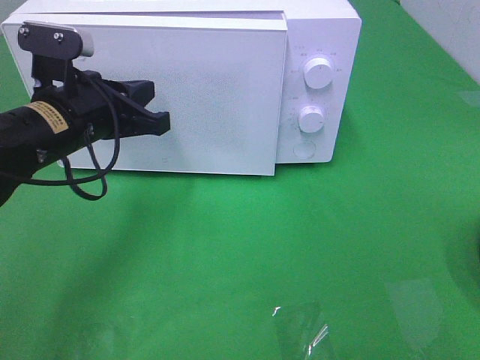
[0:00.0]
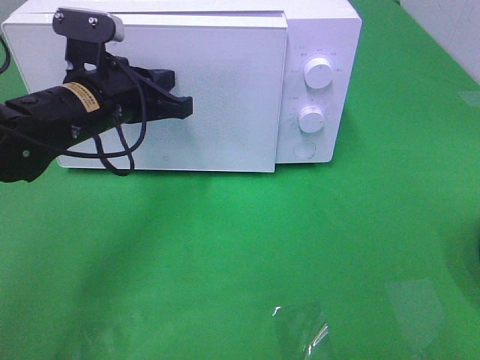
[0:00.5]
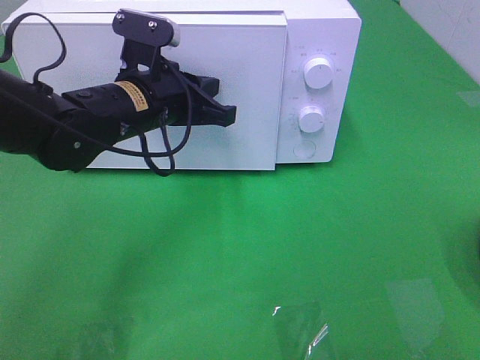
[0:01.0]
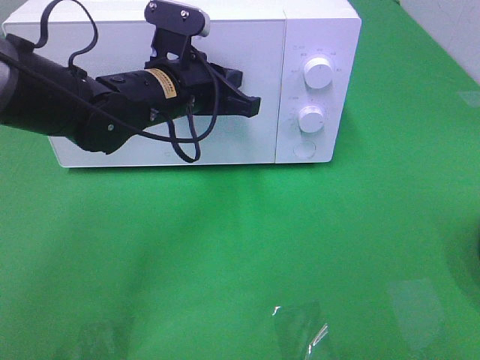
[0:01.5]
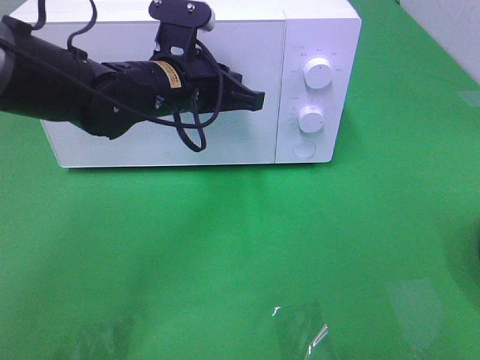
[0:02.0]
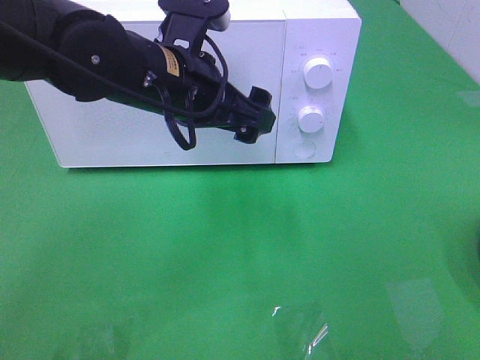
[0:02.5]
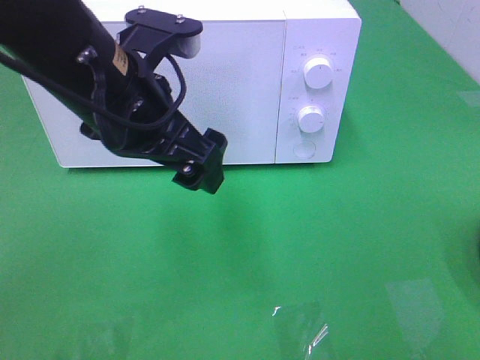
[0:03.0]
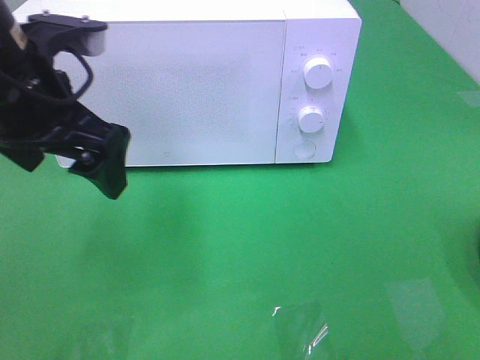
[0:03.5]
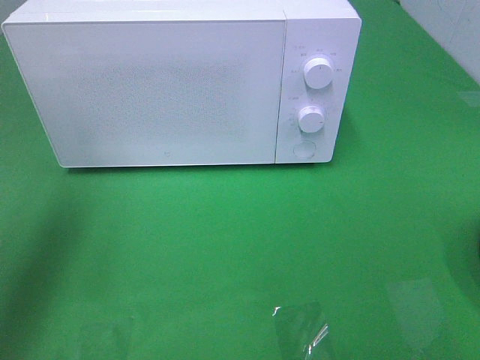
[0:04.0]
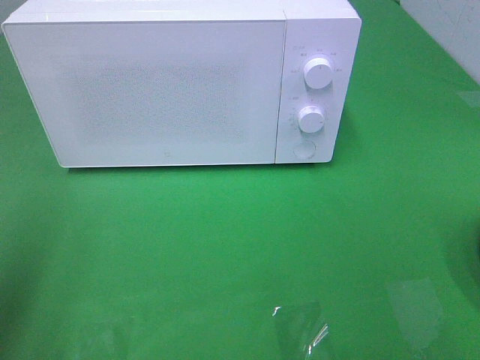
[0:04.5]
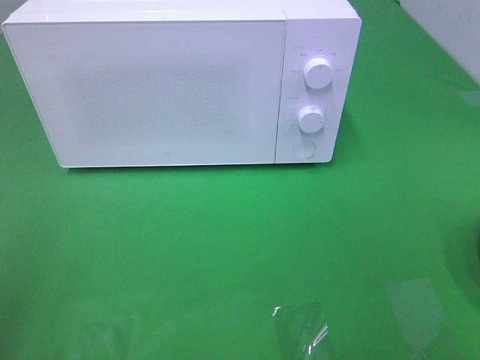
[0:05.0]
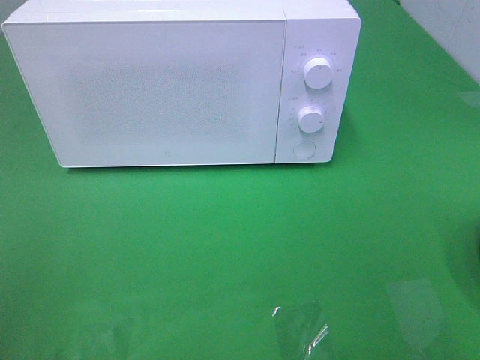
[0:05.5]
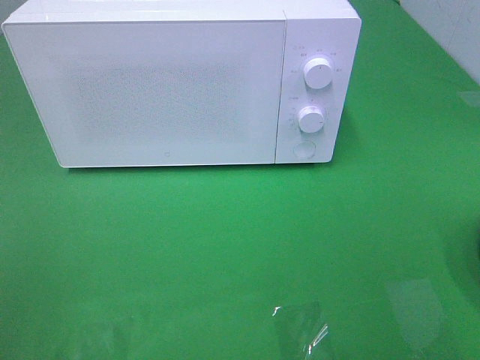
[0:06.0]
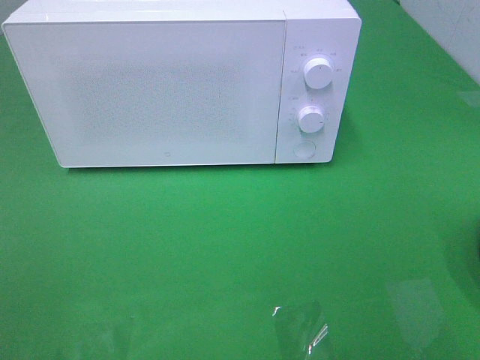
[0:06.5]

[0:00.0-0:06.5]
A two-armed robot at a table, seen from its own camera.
Task of the whole recording: Heat the burger.
0:00.0 to 0:02.0: The left gripper goes some 10 cm to the right.
0:02.0 to 0:04.5: The left gripper moves to the left and backward, roughly 35 cm, and opens.
0:04.5 to 0:06.5: The left gripper moves backward, about 15 cm.

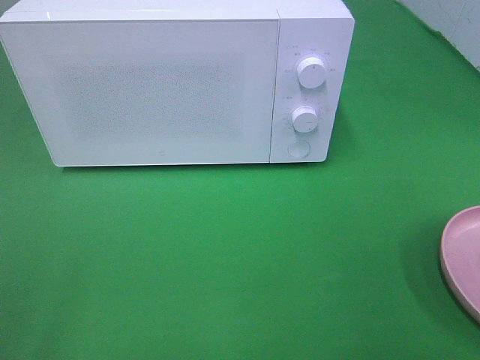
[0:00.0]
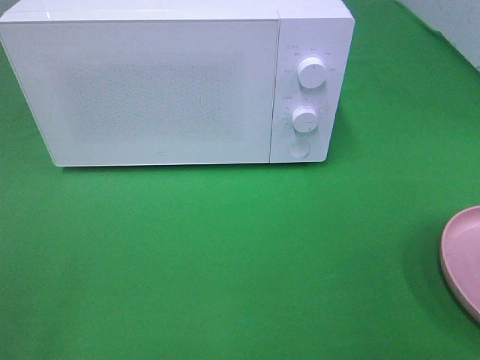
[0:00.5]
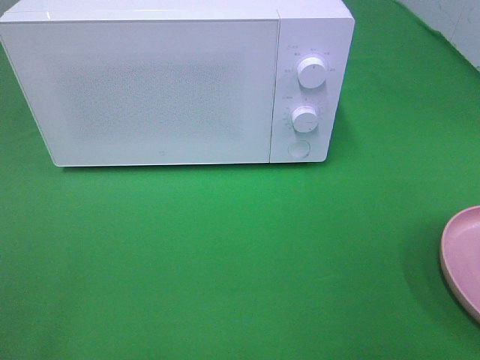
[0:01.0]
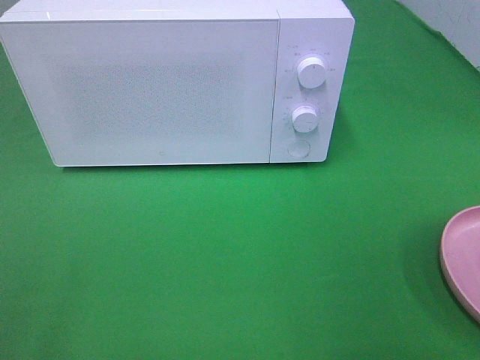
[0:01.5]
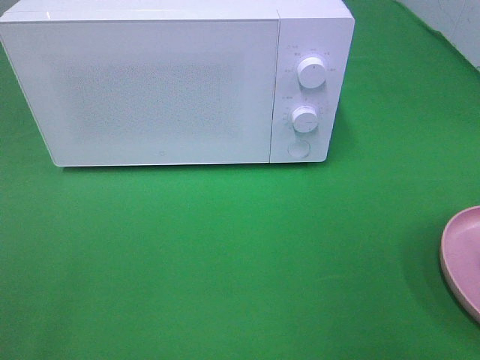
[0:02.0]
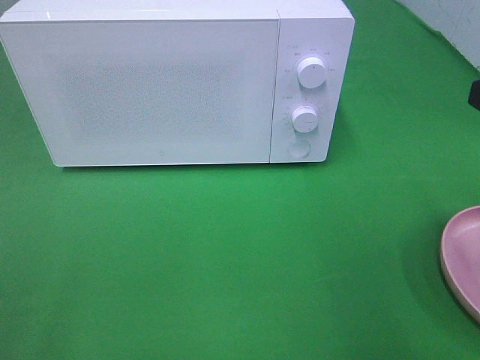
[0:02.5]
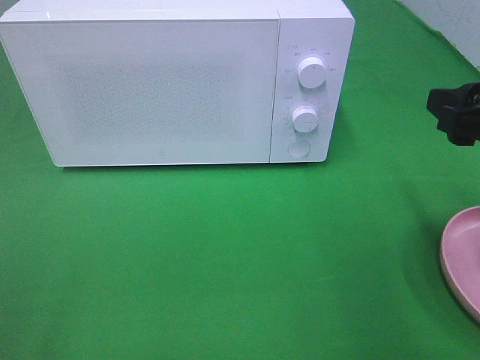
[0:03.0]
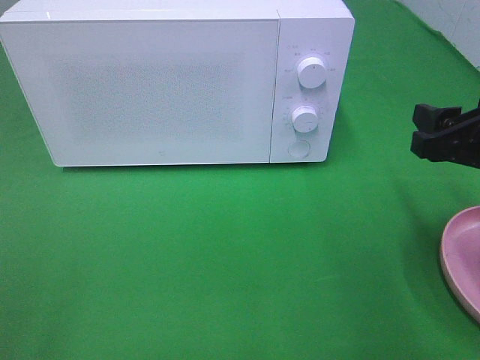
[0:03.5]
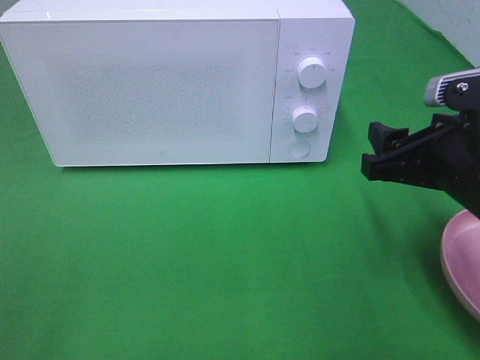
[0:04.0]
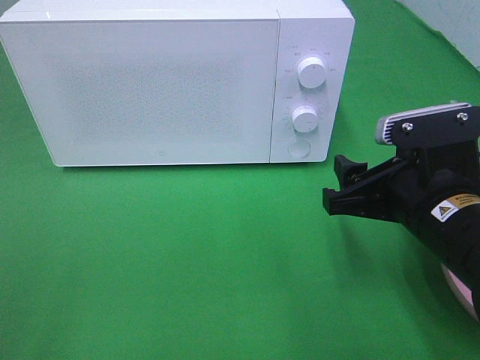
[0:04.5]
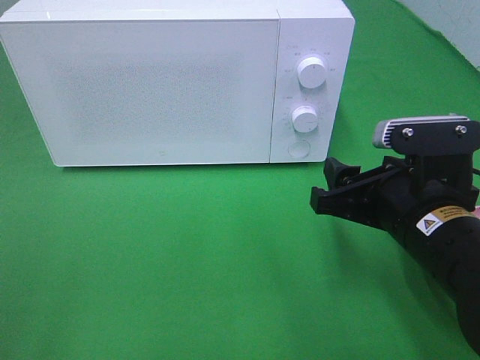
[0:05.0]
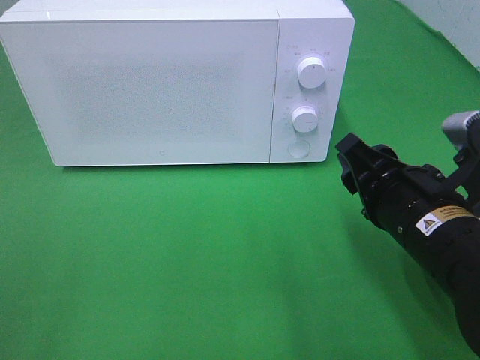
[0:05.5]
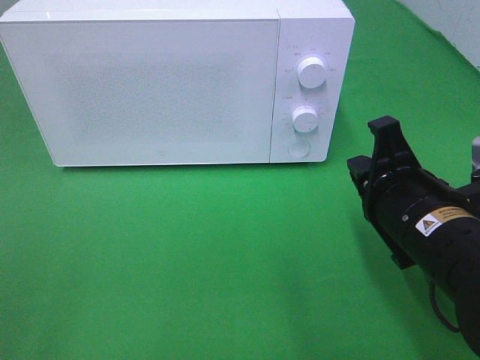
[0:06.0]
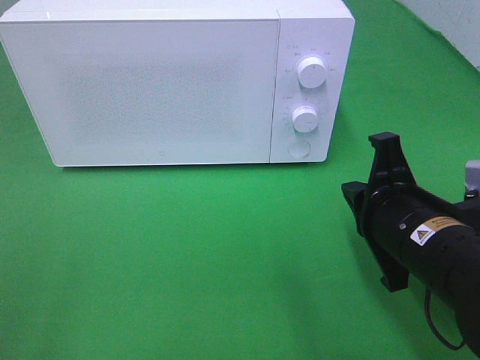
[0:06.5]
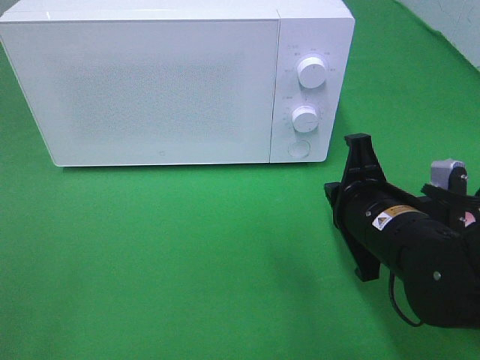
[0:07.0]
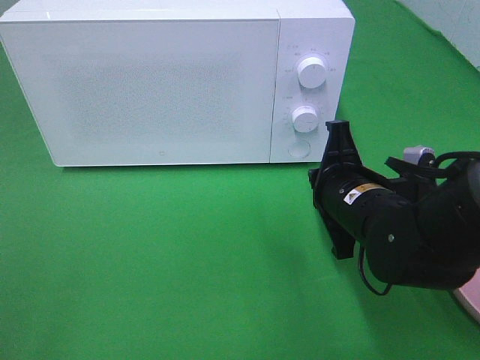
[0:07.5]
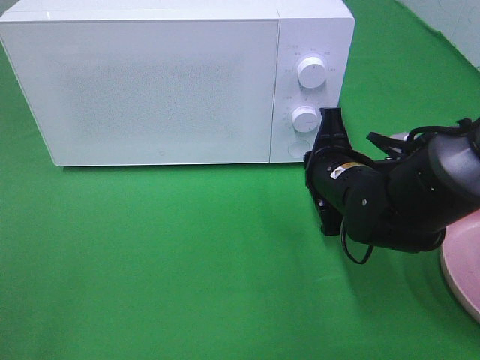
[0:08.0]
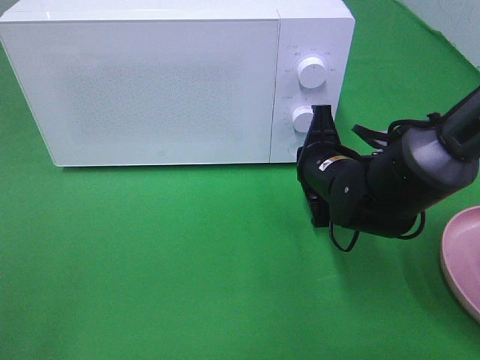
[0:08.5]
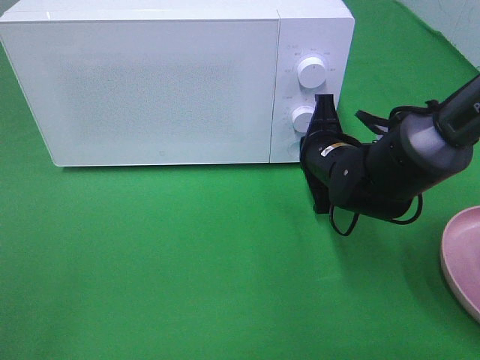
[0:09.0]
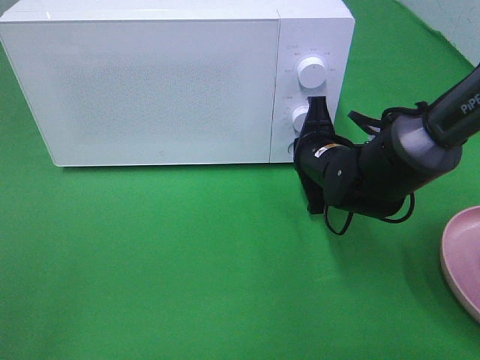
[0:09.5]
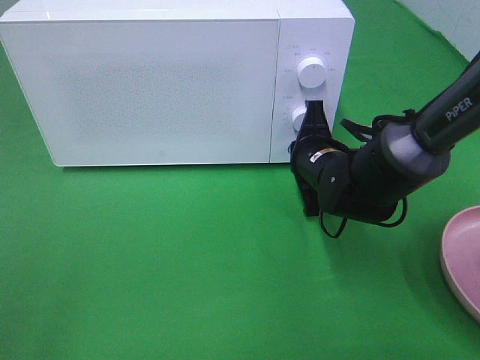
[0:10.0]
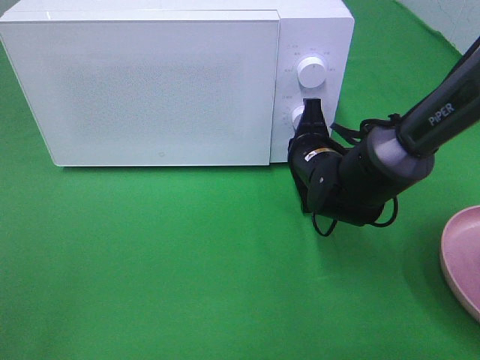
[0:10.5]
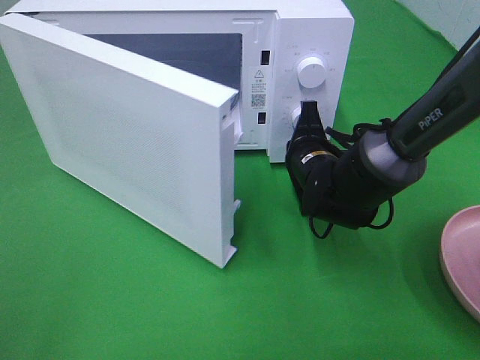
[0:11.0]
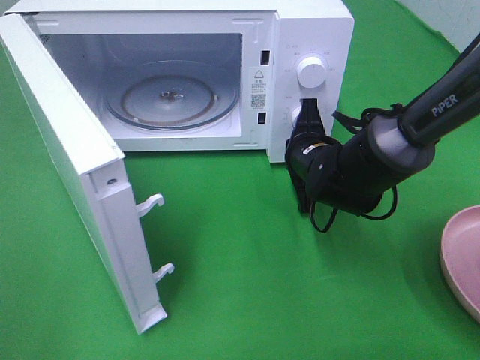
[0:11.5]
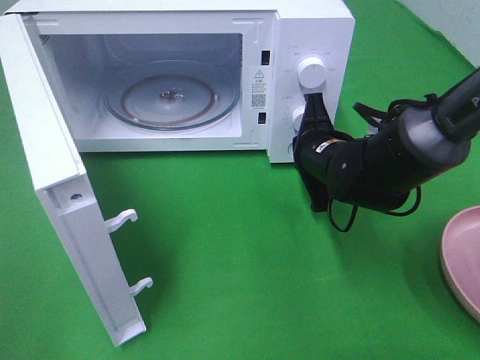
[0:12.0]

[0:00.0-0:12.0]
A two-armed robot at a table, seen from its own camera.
Task of the whole recording: Heat the burger.
0:02.0 to 0:04.0: The right gripper shifts about 15 cm downward, forward and to the left.
0:04.0 to 0:06.0: The right gripper changes place by about 5 cm, and closes.
0:06.0 to 0:08.0: The right gripper moves forward, roughly 10 cm.
0:08.0 to 0:10.0: The right gripper moves forward, approximately 5 cm.

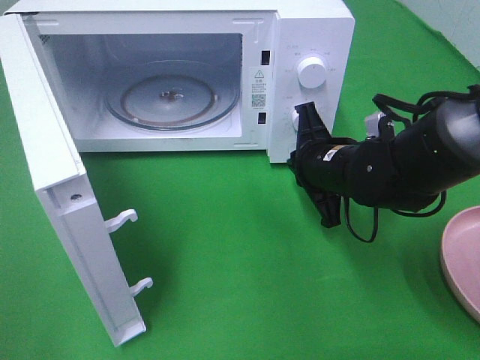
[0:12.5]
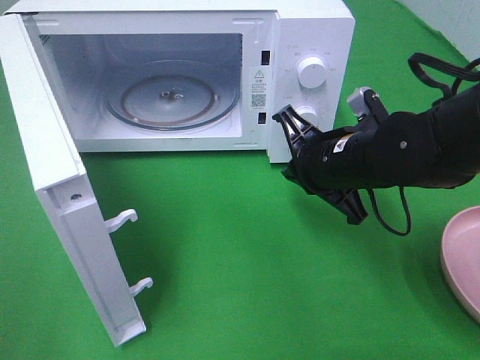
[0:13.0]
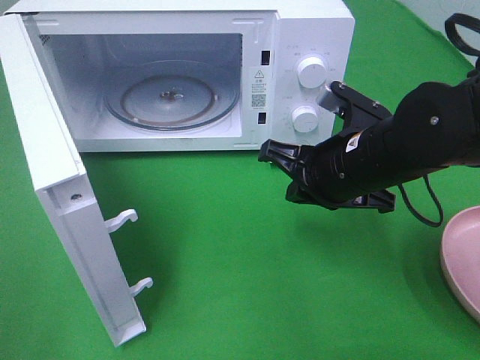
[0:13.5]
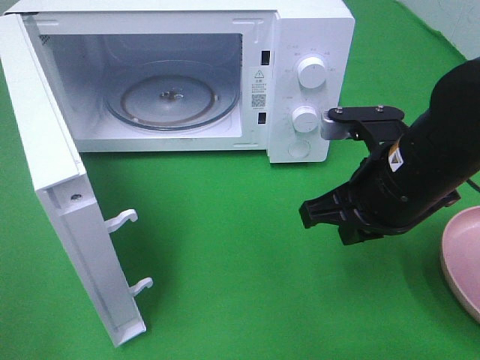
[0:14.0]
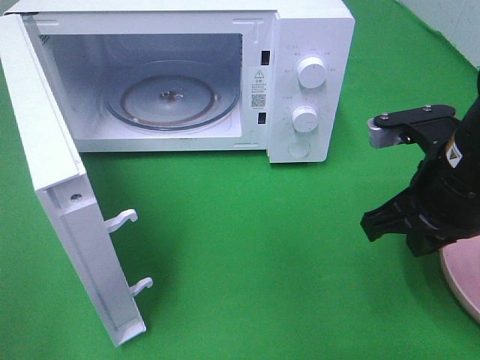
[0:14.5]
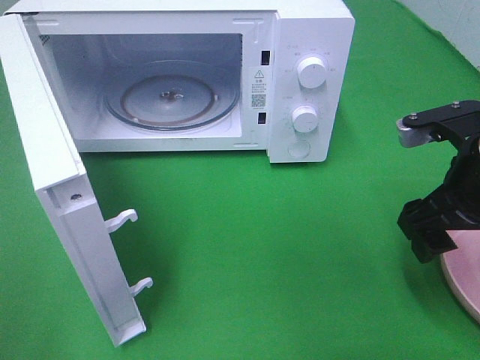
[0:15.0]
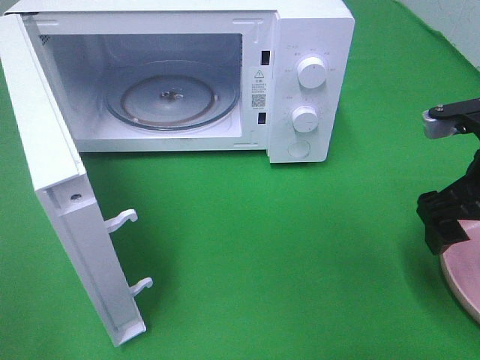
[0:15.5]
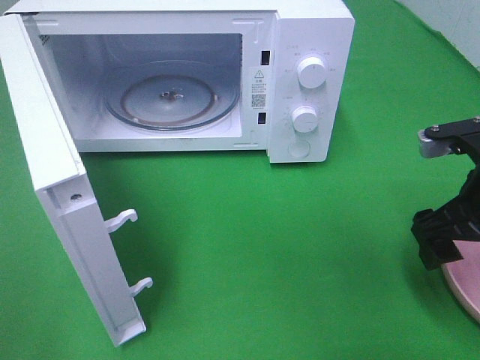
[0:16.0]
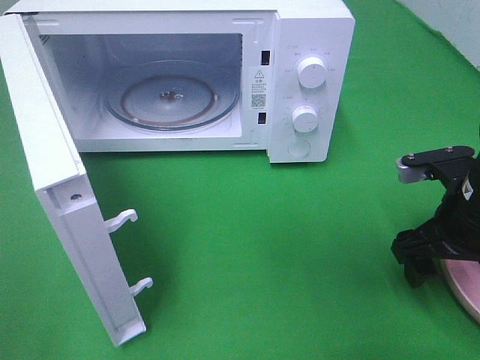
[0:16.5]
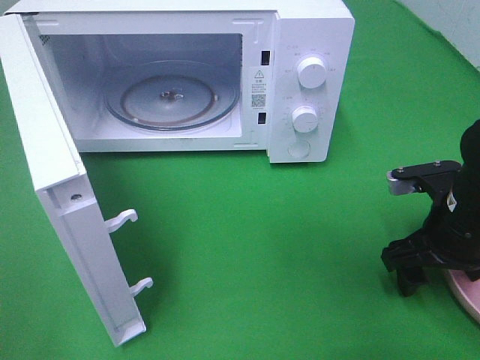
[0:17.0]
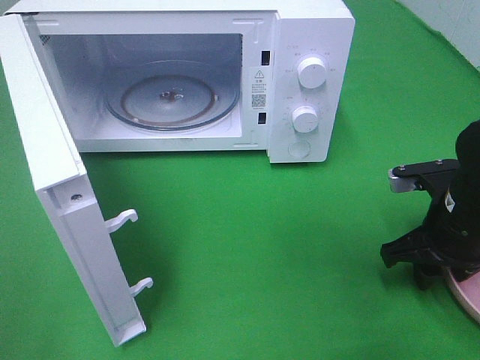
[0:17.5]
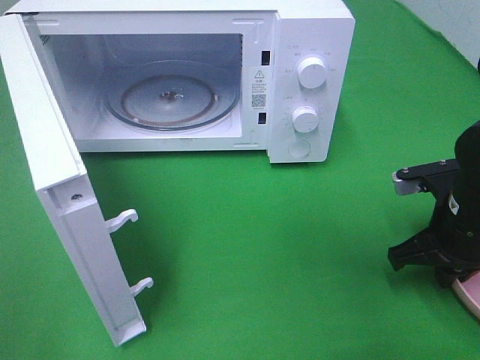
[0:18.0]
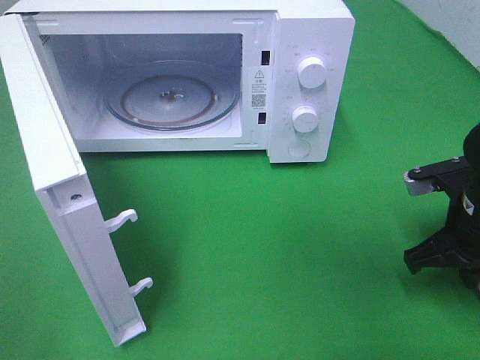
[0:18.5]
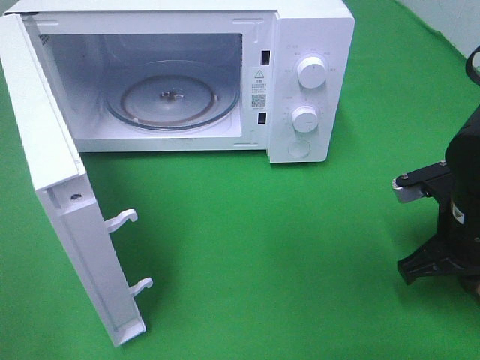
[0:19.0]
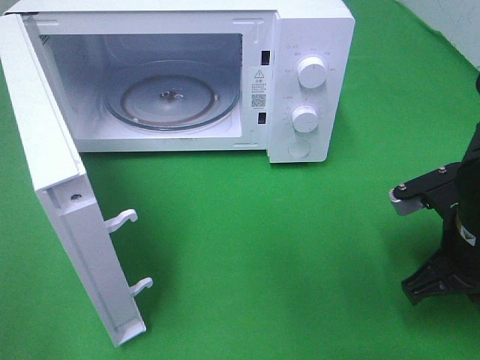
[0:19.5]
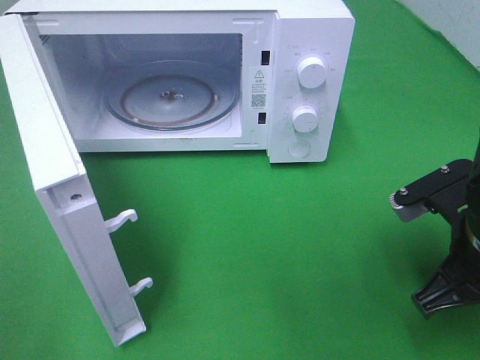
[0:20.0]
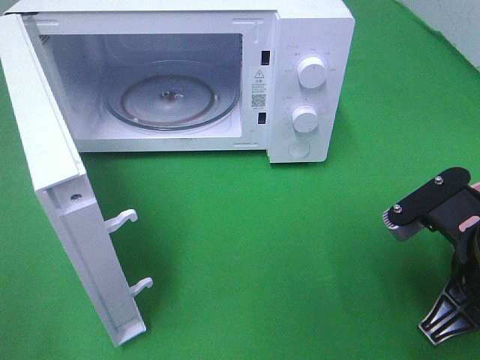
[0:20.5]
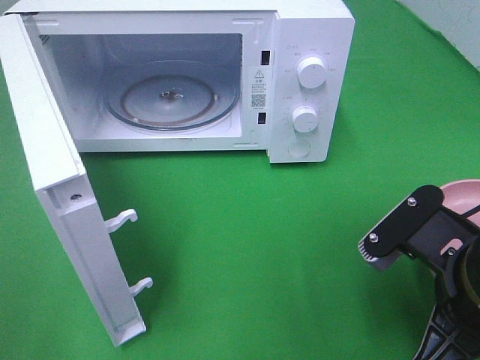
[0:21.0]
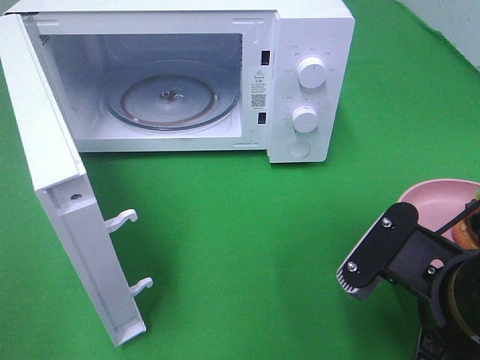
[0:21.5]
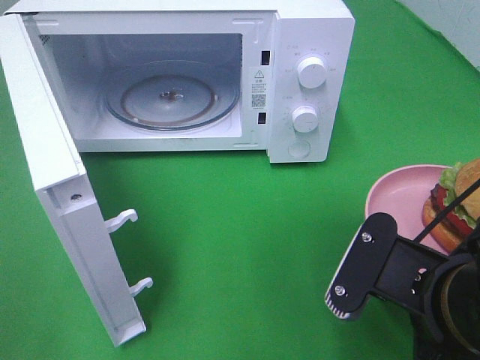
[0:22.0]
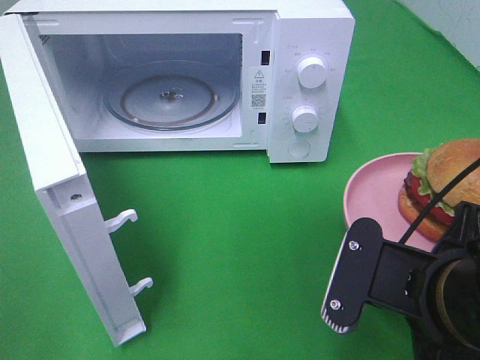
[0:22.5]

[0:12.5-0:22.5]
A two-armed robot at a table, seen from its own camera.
Task of the whole recording: Heat the burger.
Step, 0:13.0 to 0:19.0: Right hand: grab the plate with the hamburger.
0:12.5 to 0:14.5: The right gripper moves backward, upward and to the right, about 15 cm.
0:14.5 to 0:16.5: The right gripper heads downward, covering about 5 cm, and opens its fingers.
0:16.5 to 0:18.5: The right gripper closes.
0:18.5 to 0:20.5: The right gripper shifts approximately 10 cm backward and to the left.
0:20.5 to 0:22.5: The right gripper travels to the left by roughly 5 cm.
